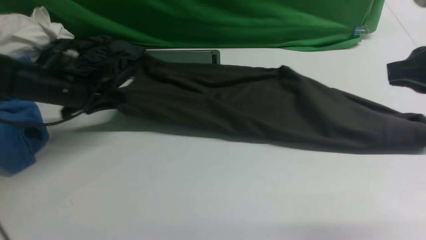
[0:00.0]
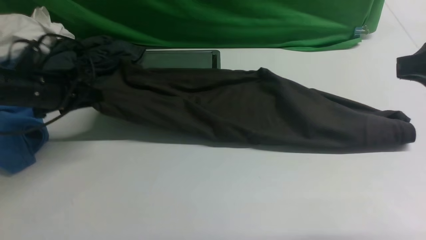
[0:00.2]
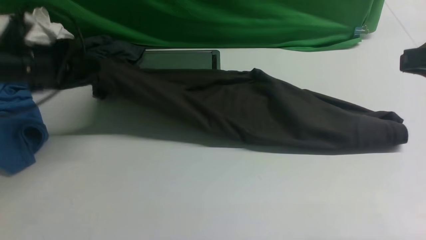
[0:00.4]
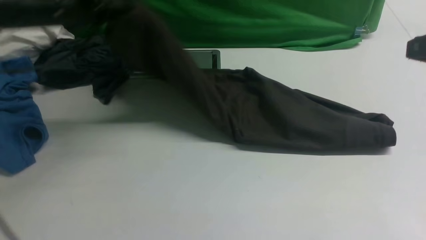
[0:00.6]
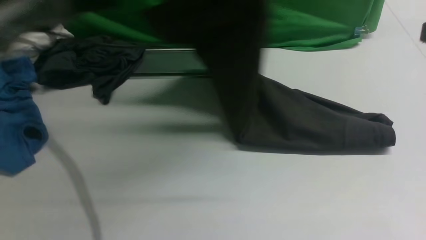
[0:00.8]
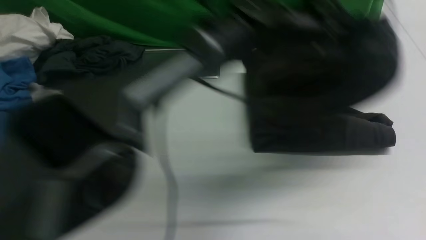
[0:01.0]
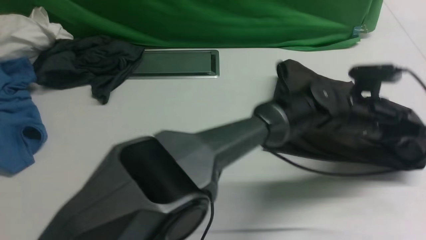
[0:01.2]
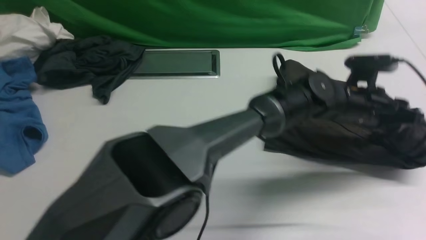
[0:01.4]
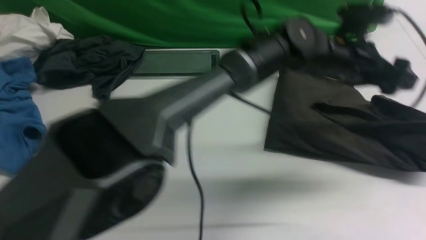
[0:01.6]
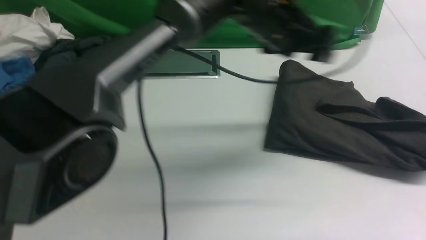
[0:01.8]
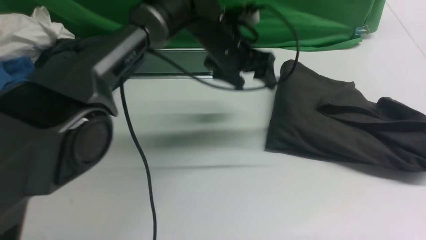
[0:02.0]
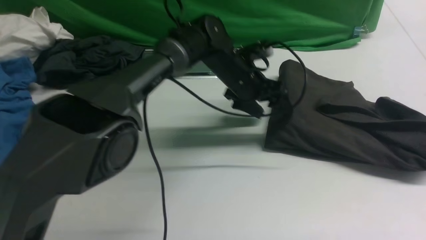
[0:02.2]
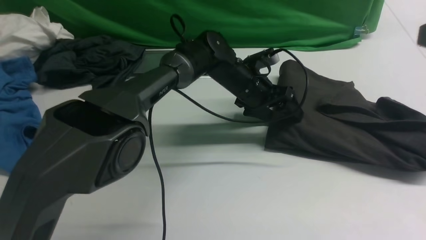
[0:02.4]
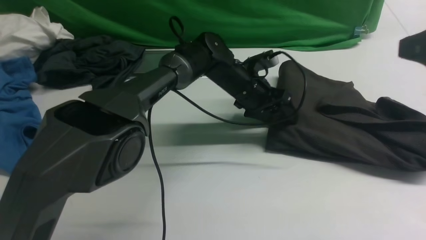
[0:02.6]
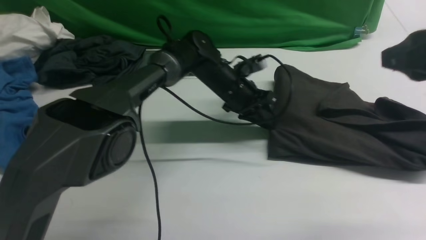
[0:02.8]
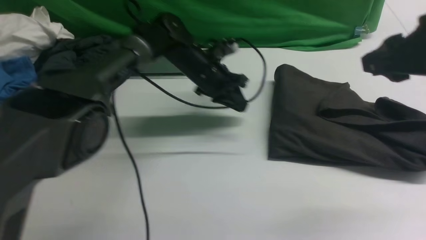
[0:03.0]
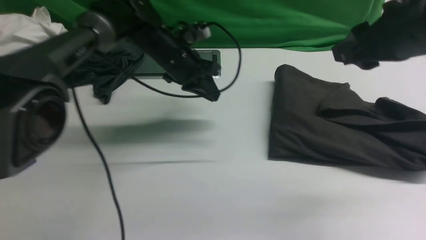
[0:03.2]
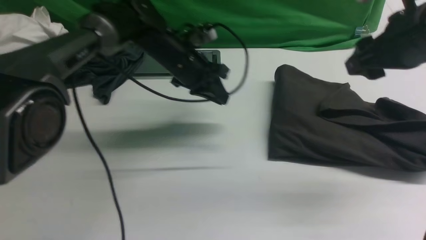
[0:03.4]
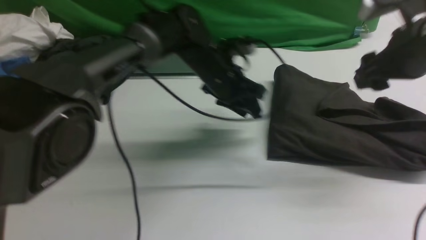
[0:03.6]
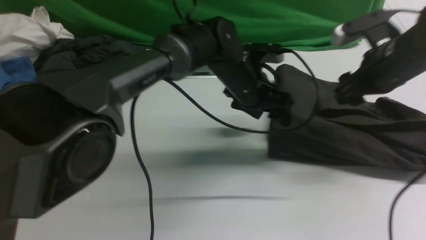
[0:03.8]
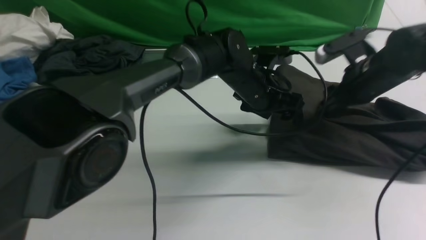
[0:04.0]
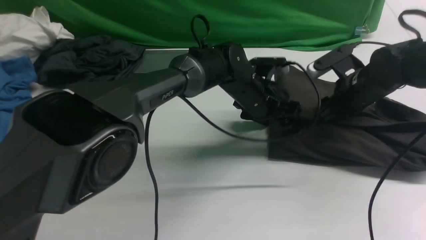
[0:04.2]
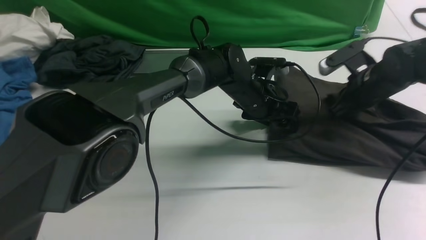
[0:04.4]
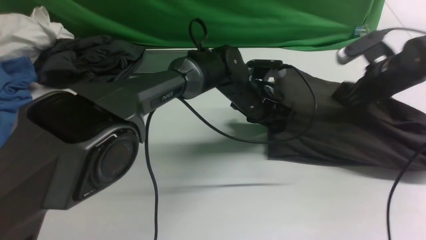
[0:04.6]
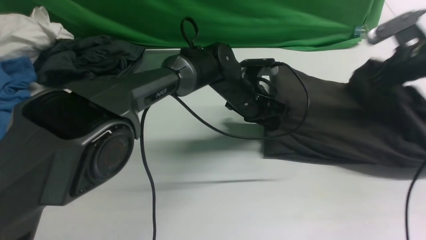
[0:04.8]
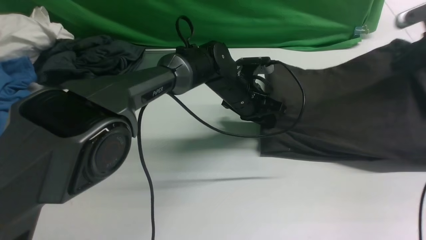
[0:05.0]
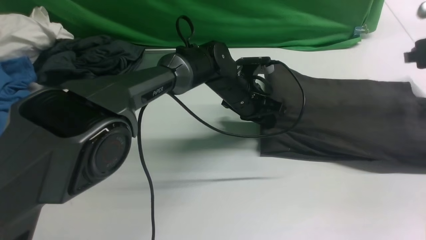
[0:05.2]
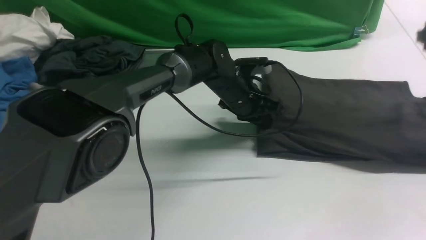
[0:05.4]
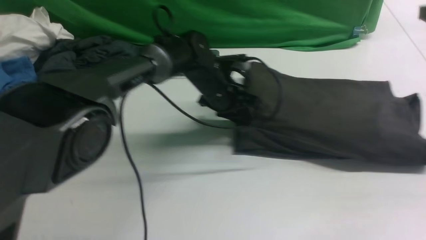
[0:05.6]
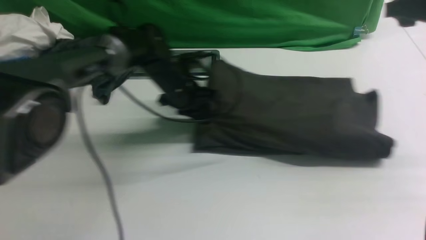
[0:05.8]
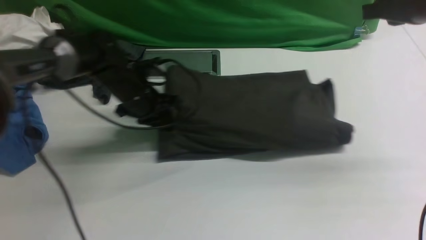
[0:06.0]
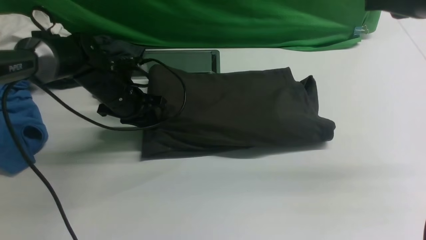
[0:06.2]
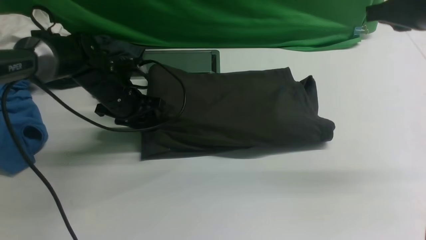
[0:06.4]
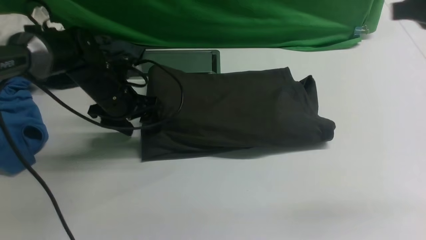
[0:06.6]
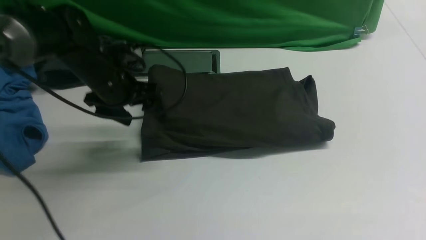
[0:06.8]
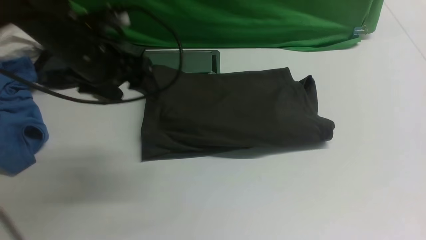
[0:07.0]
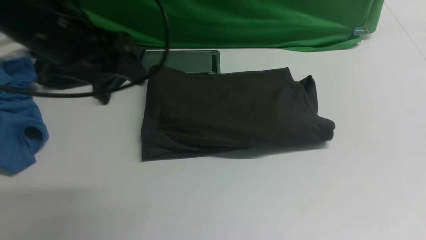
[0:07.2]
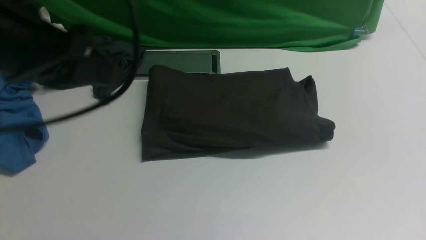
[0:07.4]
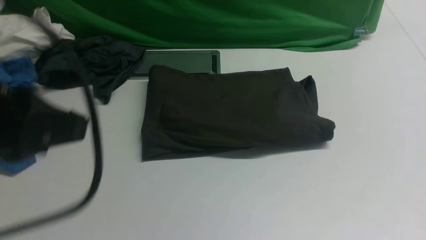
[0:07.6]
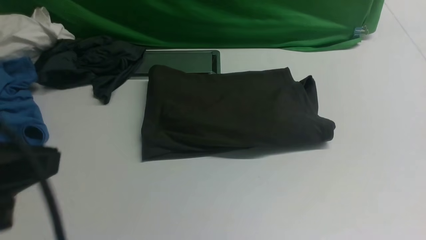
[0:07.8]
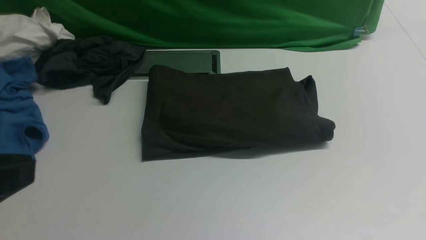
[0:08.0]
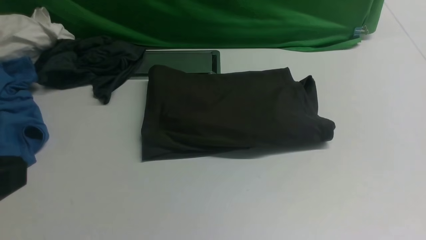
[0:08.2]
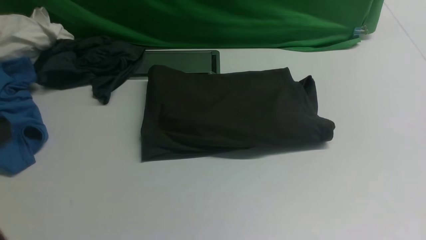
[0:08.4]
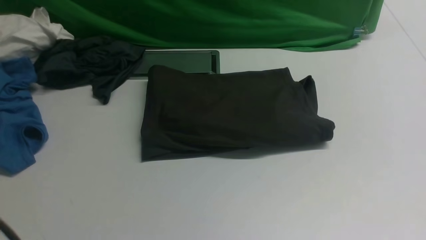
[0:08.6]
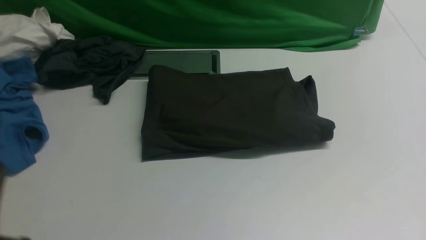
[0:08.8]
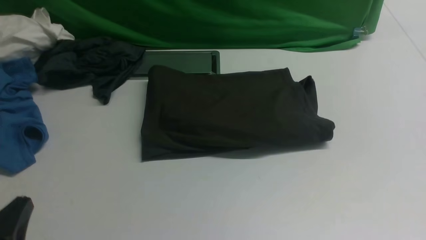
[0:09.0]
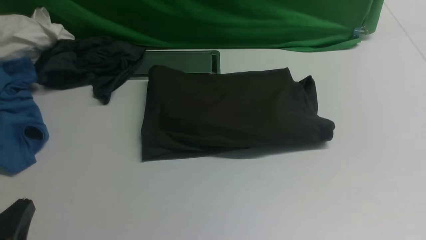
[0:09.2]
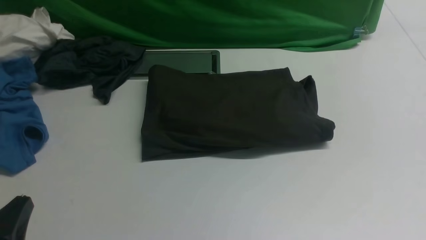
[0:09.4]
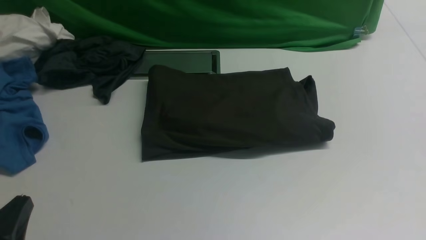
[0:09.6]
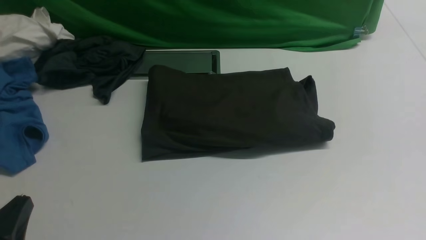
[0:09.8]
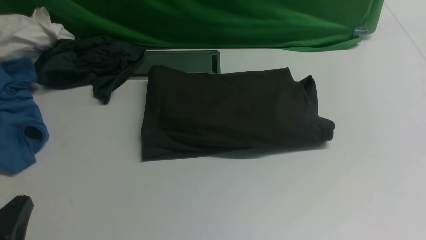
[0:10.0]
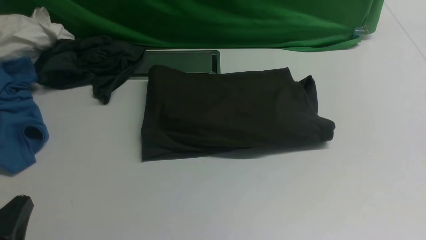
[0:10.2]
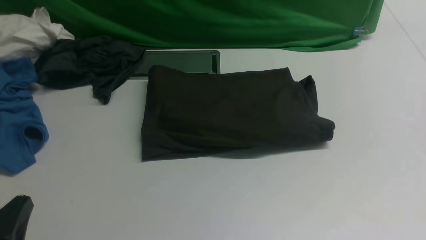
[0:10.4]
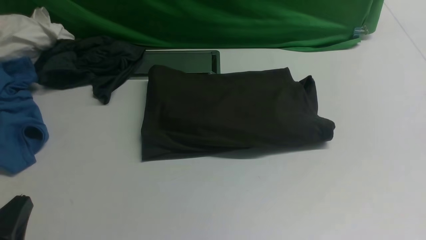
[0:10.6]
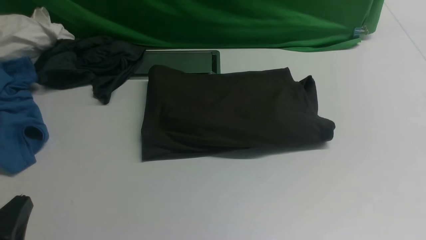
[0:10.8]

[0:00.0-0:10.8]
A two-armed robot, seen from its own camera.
Step, 0:00.4 to 0:01.6: Drag the left edge of the fabric to the left with your left arm and fold it to the right edge.
0:00.0 to 0:01.6: The right gripper goes about 10 cm backward and upward. Meanwhile the left gripper moves to the right, roughly 40 cm, and opens.
0:01.6 to 0:03.0: The left gripper is displaced to the left, downward and forward by roughly 20 cm, and closes its fingers, while the right gripper goes roughly 10 cm forward and downward, and opens.
0:03.0 to 0:04.6: The right gripper moves downward, forward and to the right, approximately 25 cm, and closes up. The left gripper goes approximately 10 cm to the right, and opens, then closes again.
0:04.6 to 0:06.2: The right gripper shifts approximately 20 cm upward and backward, and opens, then closes again. The left gripper moves to the left, approximately 25 cm.
0:06.2 to 0:07.8: The left gripper is displaced backward and upward by some 40 cm, and opens, then closes once more. Meanwhile the right gripper is displaced backward by roughly 25 cm.
0:07.8 to 0:09.2: The left gripper moves downward, approximately 20 cm.

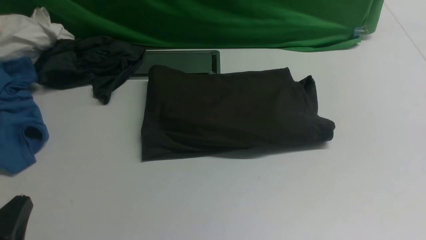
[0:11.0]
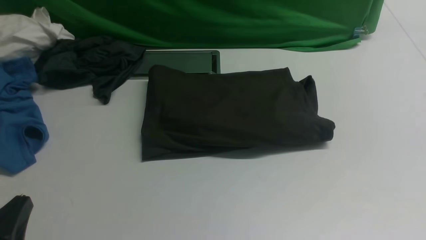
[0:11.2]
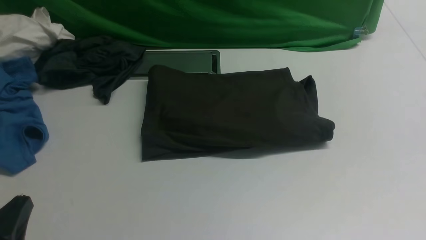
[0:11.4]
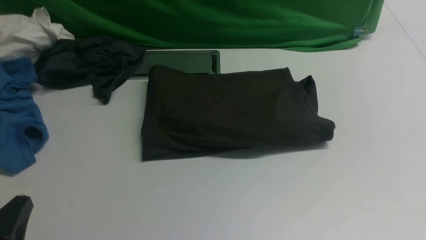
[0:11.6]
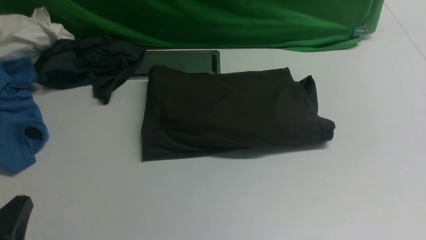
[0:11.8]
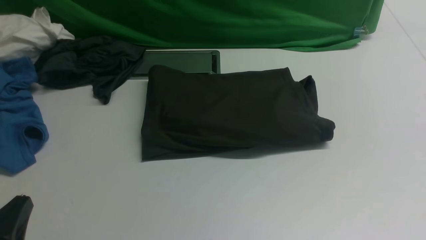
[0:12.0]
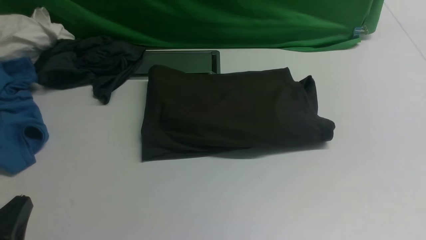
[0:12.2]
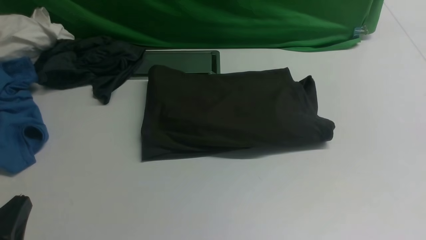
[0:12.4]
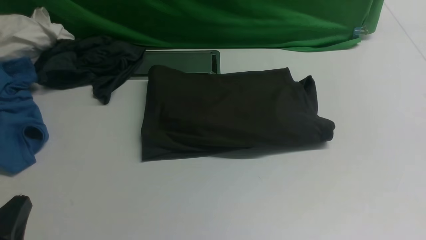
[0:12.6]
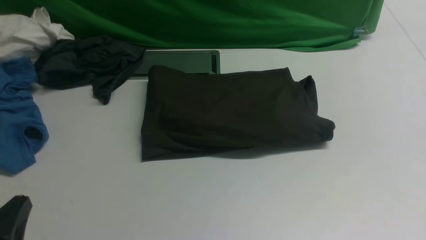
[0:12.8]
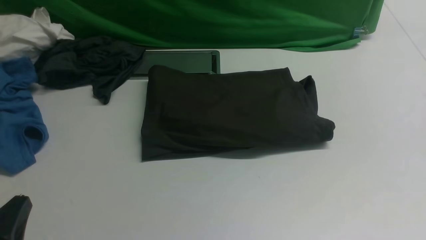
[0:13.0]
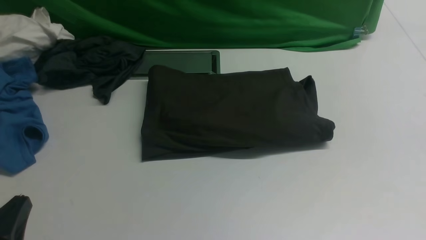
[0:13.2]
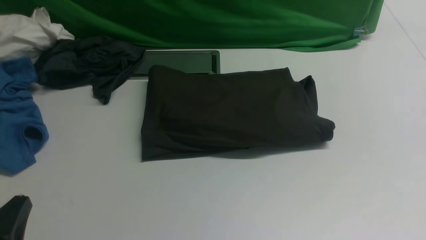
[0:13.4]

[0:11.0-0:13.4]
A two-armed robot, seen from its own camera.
0:12.2 to 0:13.4: Neither gripper changes place.
